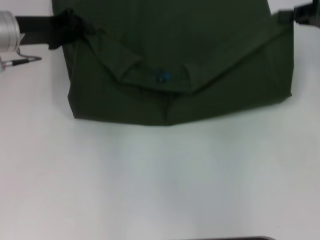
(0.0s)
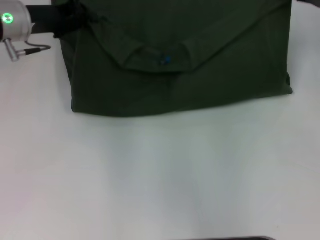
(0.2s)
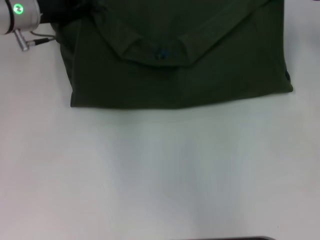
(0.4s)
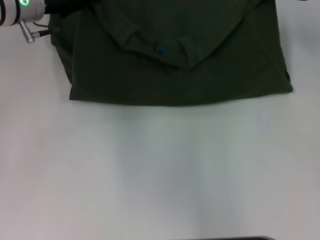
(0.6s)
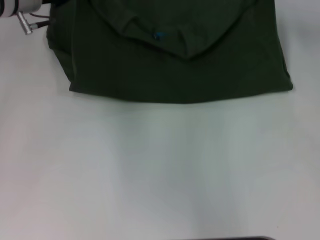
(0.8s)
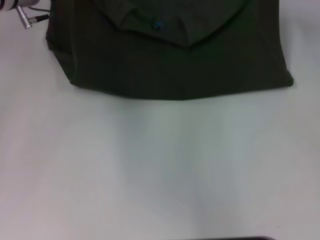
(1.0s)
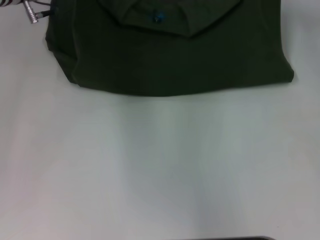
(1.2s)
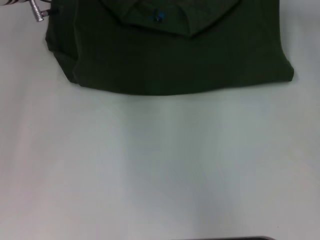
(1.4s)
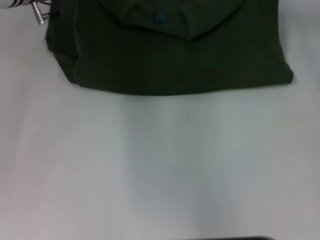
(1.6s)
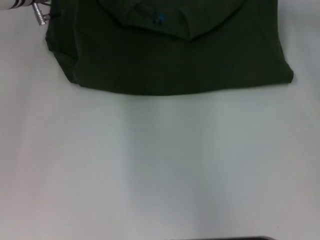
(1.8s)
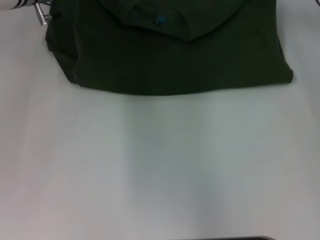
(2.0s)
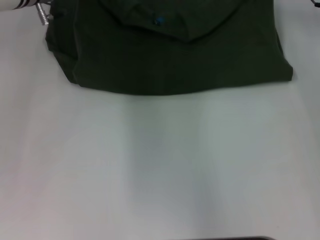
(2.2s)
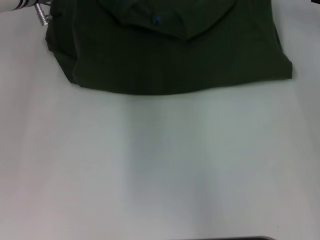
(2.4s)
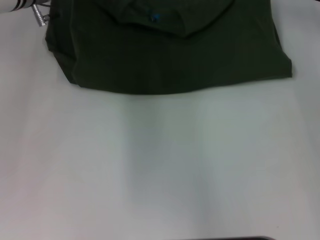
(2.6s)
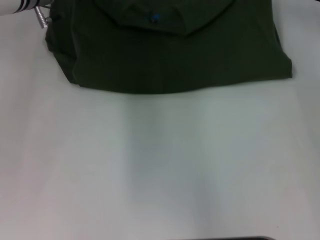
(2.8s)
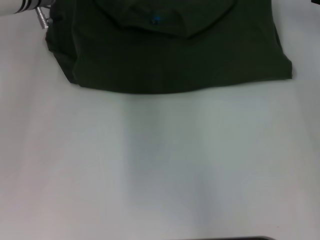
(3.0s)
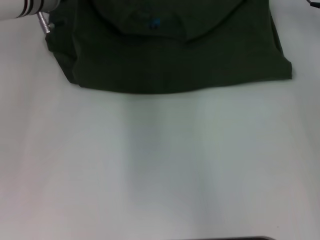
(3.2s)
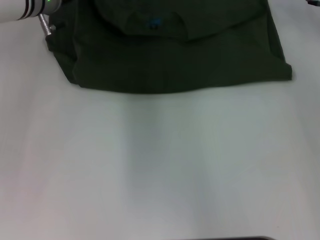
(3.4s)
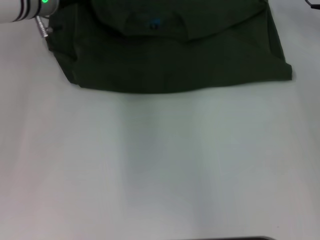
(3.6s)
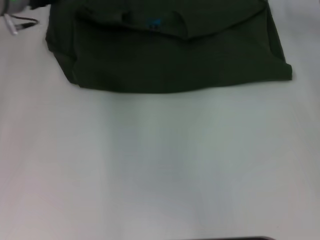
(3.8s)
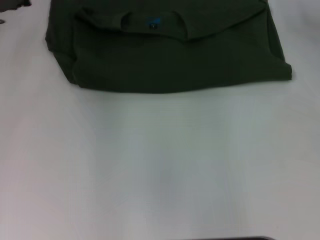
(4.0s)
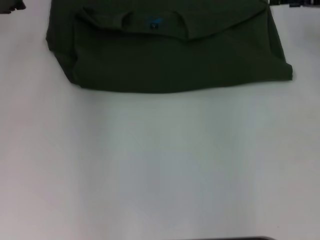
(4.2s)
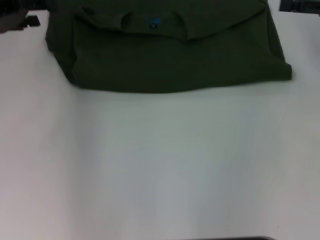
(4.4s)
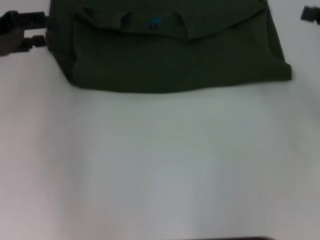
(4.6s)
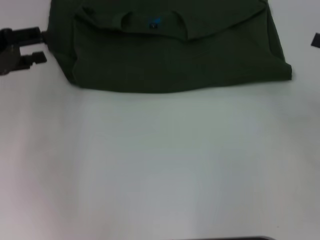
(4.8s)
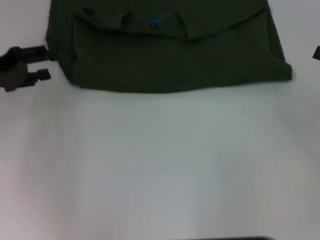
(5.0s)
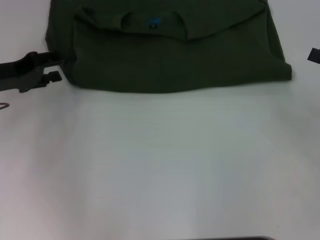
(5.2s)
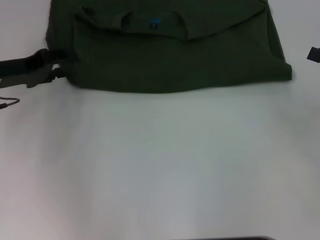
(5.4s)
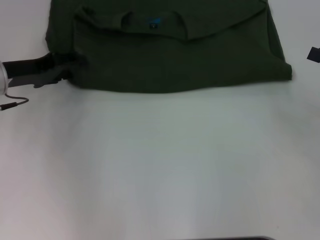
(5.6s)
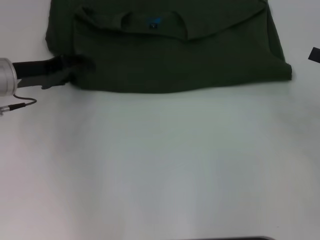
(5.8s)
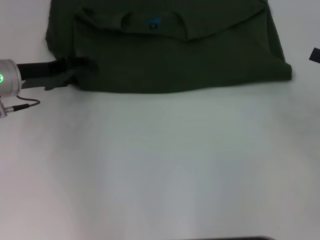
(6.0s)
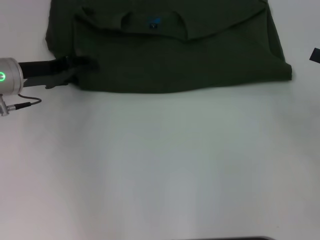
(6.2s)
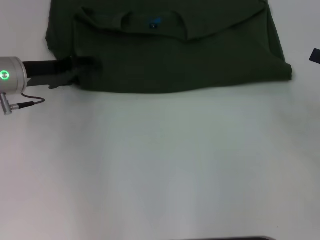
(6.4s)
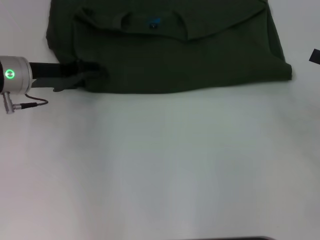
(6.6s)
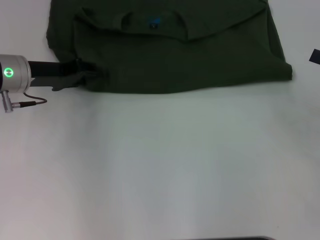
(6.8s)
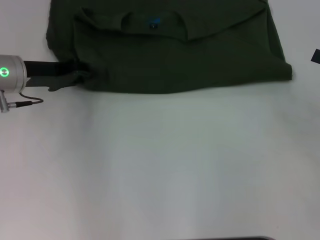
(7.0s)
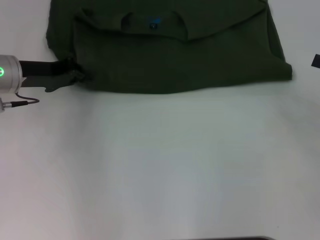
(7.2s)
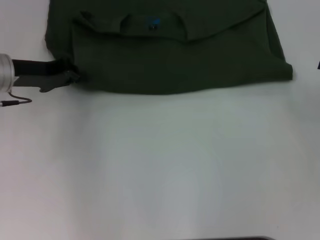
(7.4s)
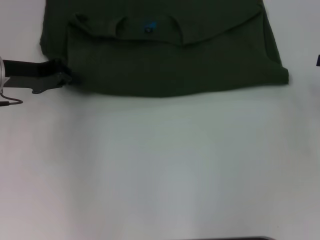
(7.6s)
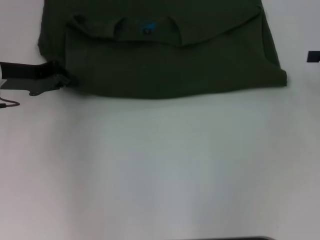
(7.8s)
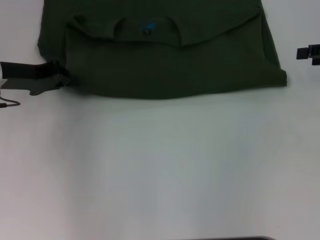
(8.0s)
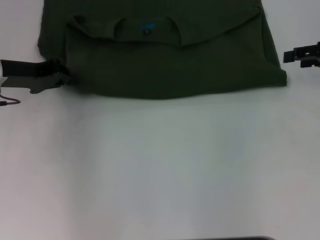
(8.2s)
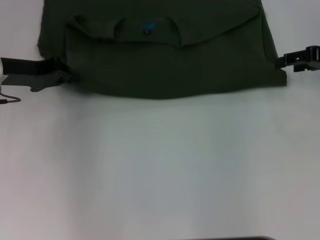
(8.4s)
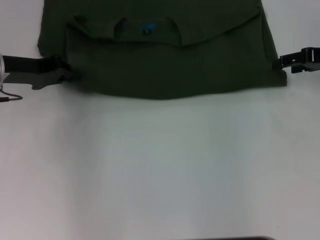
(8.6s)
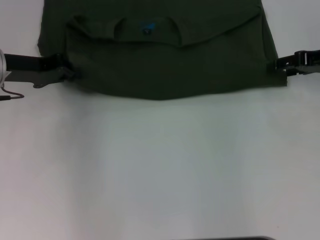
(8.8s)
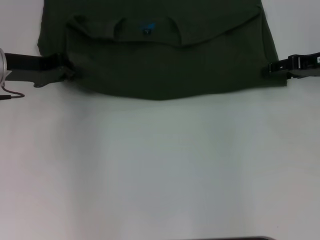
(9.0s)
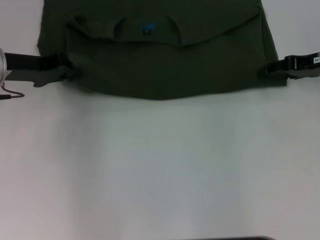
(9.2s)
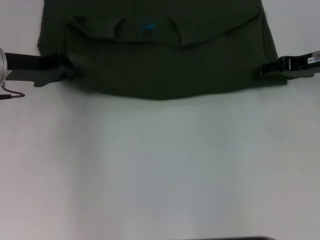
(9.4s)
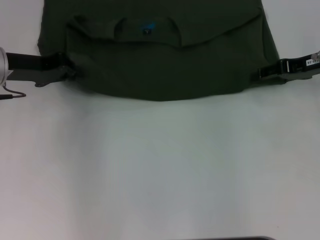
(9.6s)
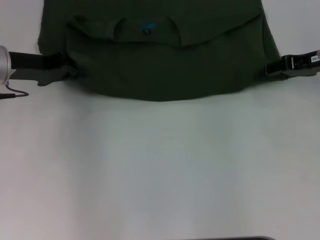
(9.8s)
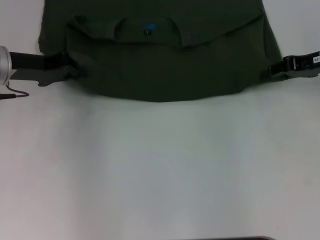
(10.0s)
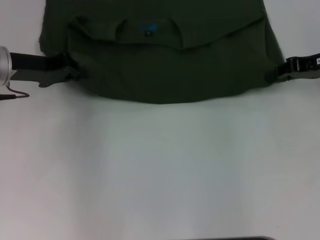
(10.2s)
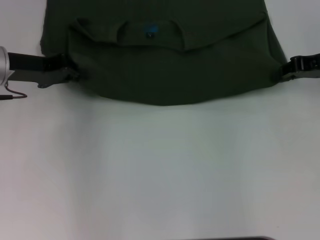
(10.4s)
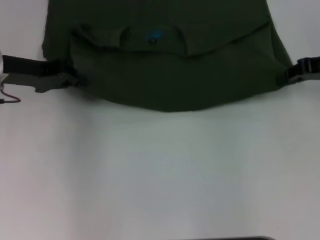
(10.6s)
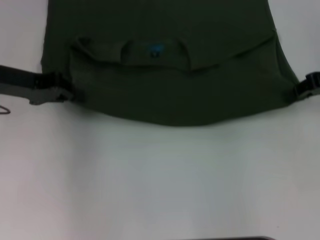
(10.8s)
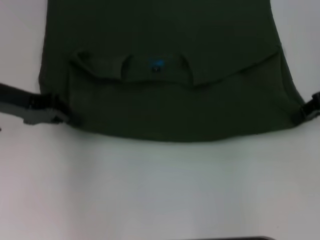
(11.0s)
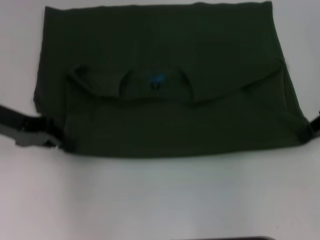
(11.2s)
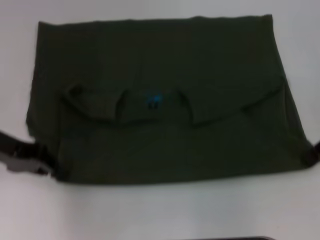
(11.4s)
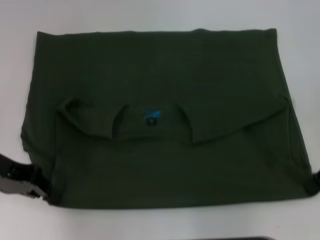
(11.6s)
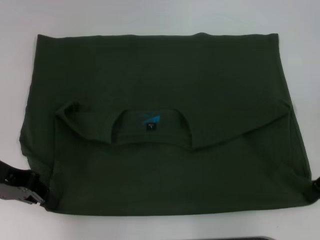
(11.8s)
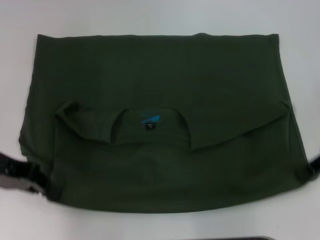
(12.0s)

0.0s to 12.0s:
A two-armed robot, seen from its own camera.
Step, 0.0s to 3.6s: Fold the clothes with your left hand.
Step, 0.0s to 3.6s: Fold the clothes with your right hand.
Step, 3.8s to 11.8s: Pull the clothes with your left hand.
Step, 3.8s to 11.8s: Pull the clothes with your right hand.
0.0s to 1.6s: The left gripper moves forward and to the right, approximately 10 cm. The right gripper goes about 10 cm forward and to the left.
1.6s to 3.0s: The grippers stay close to where they were, moving slightly.
3.0s to 4.4s: The left gripper is displaced to the left and backward by approximately 15 cm, and opens up. Meanwhile the right gripper travels backward and to the right by some 15 cm, and opens its fingers.
4.4s to 6.0s: The left gripper is displaced downward by some 10 cm. Meanwhile the right gripper heads backward and downward, covering some 10 cm.
6.0s to 7.6s: The right gripper shifts by roughly 5 cm, while the left gripper closes its fingers.
7.6s to 9.0s: The right gripper moves to the left and forward, approximately 10 cm.
9.0s to 10.4s: The right gripper closes its fingers.
10.4s to 12.0s: The two grippers go approximately 10 cm backward.

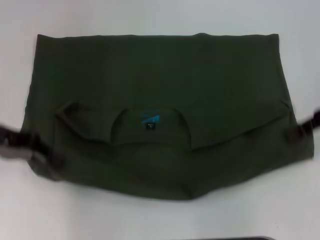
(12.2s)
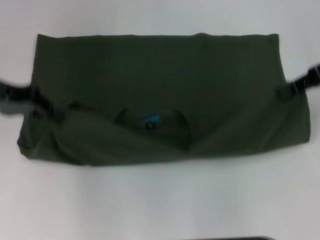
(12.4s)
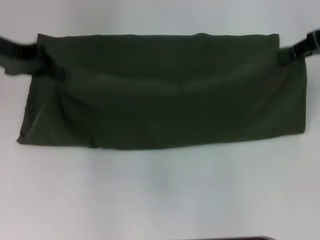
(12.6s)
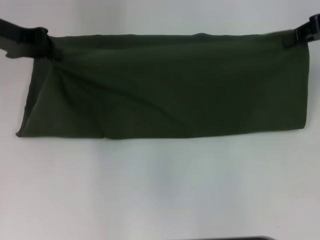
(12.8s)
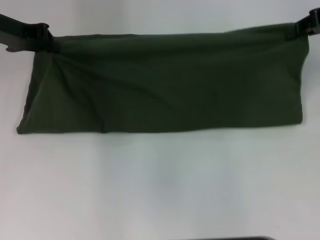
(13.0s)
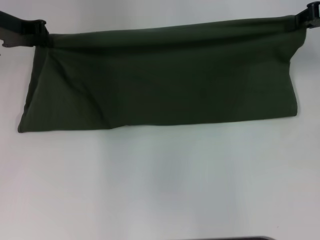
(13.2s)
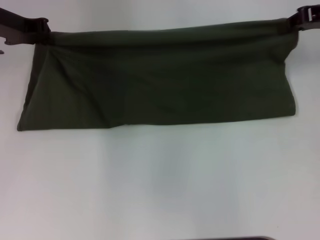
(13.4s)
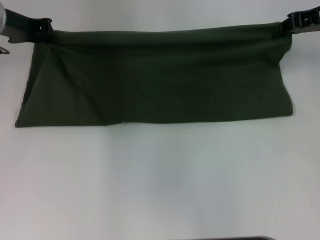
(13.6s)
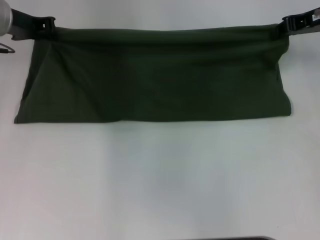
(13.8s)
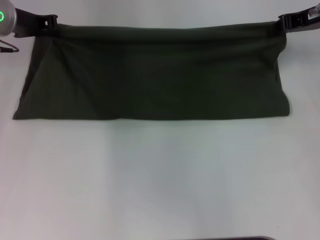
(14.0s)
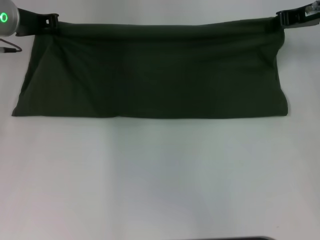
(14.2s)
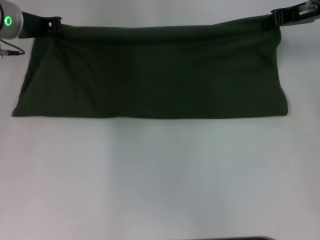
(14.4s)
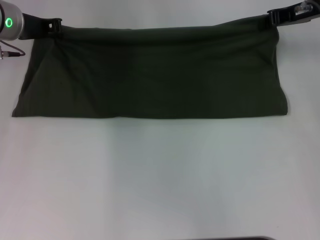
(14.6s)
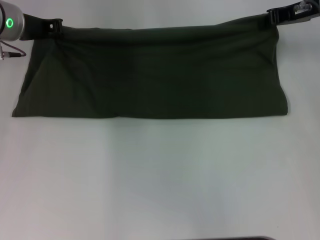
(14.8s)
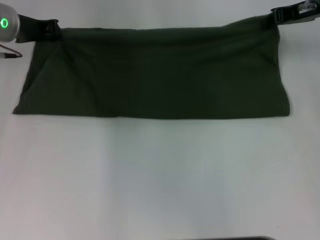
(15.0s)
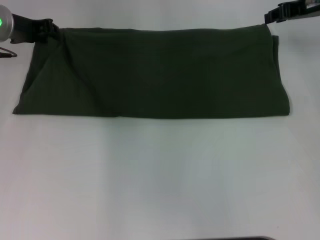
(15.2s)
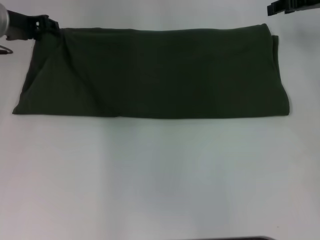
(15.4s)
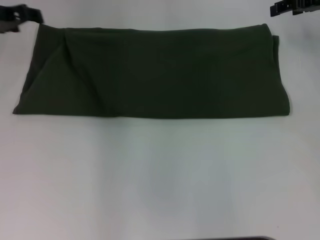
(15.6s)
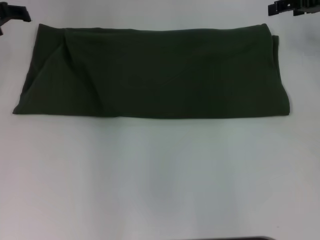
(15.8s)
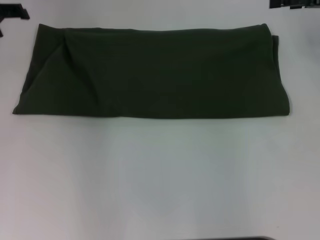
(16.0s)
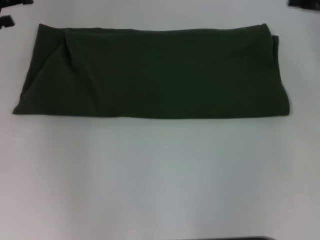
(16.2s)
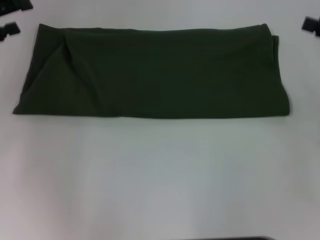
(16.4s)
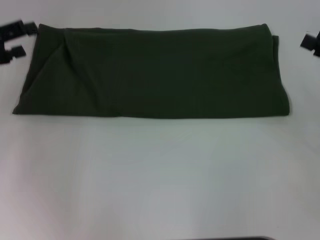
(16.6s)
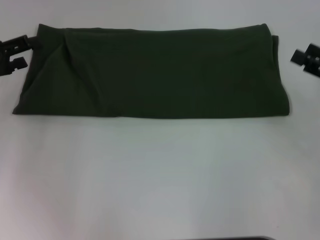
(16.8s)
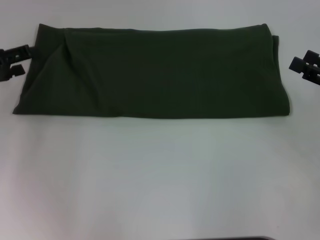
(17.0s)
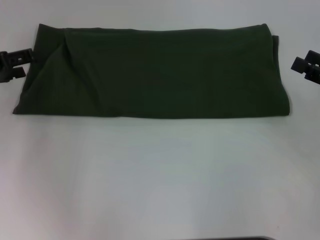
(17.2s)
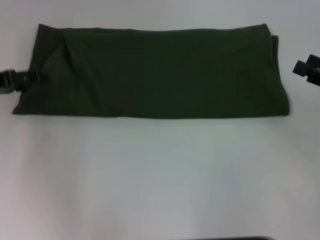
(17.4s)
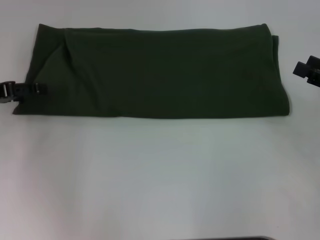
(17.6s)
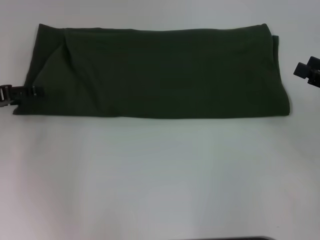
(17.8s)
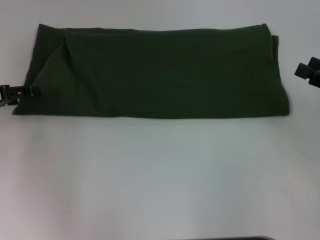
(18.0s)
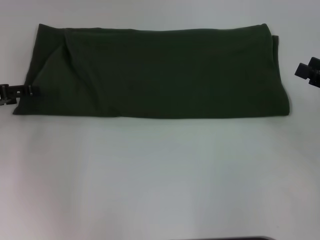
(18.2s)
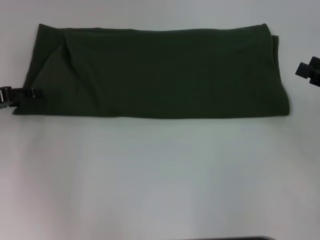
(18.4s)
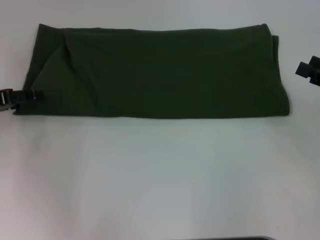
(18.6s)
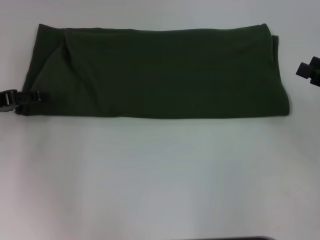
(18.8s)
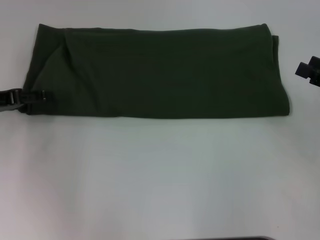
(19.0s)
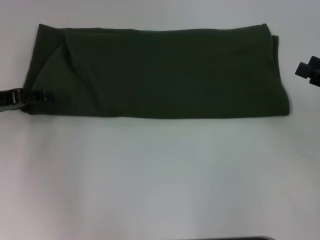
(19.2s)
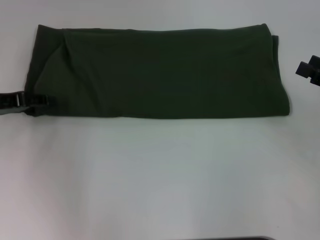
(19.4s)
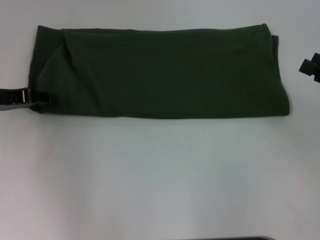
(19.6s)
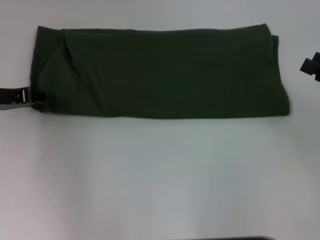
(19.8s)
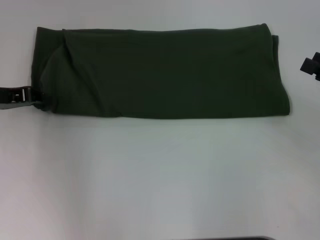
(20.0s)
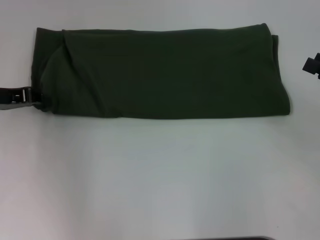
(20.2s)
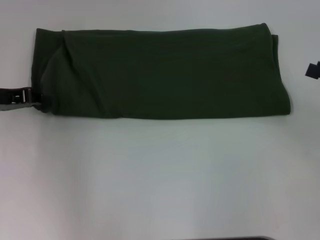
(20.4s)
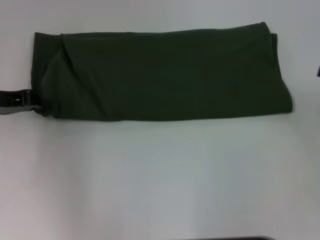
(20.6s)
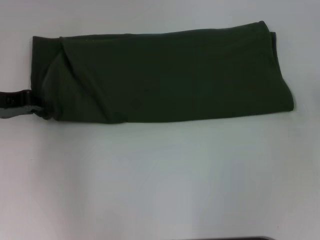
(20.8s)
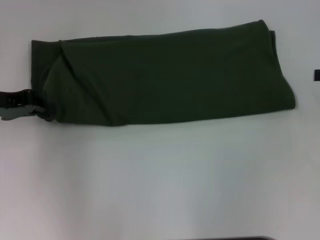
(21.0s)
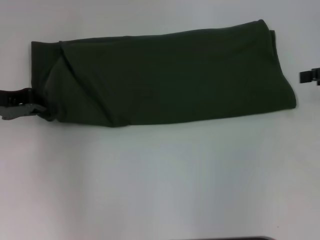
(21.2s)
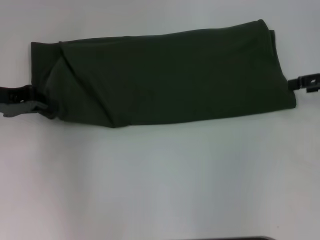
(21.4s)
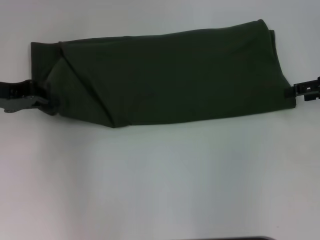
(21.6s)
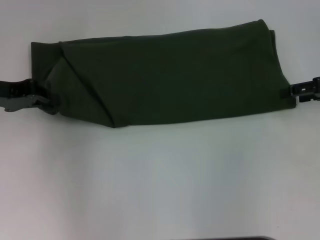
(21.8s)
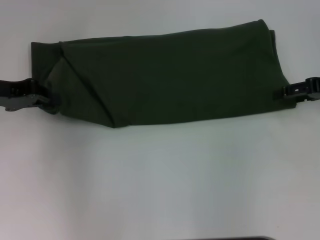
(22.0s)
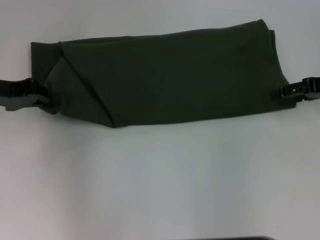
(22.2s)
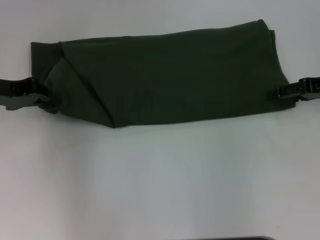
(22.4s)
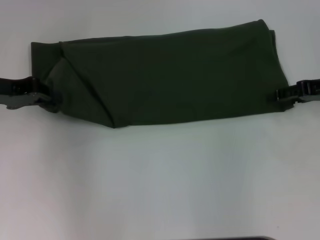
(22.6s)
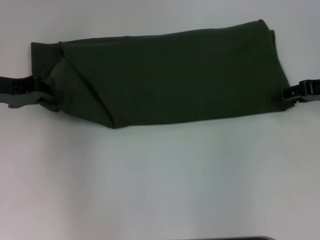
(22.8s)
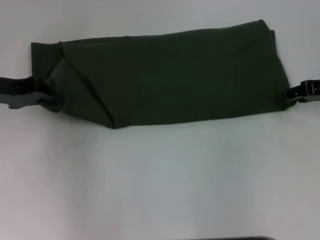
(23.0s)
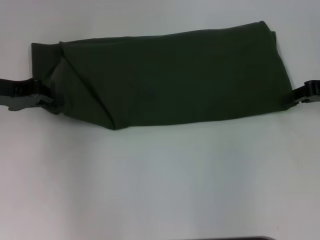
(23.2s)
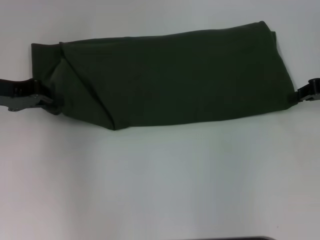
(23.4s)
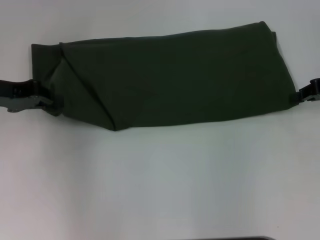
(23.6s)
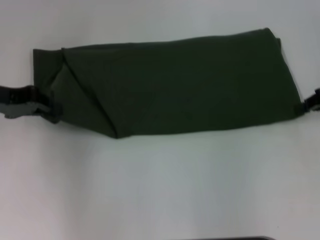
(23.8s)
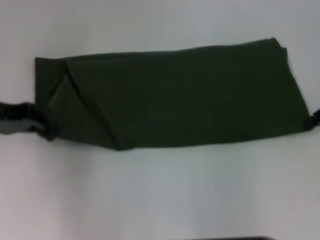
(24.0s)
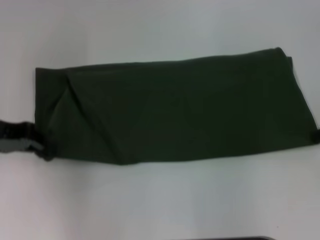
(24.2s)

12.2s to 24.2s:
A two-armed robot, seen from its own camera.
Step, 12.2s to 15.4s: Fold the clothes with your right hand.
12.2s to 13.8s: The grippers both shift forward by about 10 cm.
13.8s to 15.2s: There are only small adjustments of the grippers.
15.2s to 16.6s: The left gripper shifts roughly 15 cm backward and to the left, and opens up, while the right gripper moves backward and to the right, about 20 cm, and opens up.
18.2s to 19.8s: The left gripper closes.
19.8s to 21.2s: The left gripper closes up, while the right gripper goes about 10 cm forward.
21.2s to 22.6s: The right gripper shifts by approximately 5 cm.
22.6s to 24.2s: The right gripper closes up.
